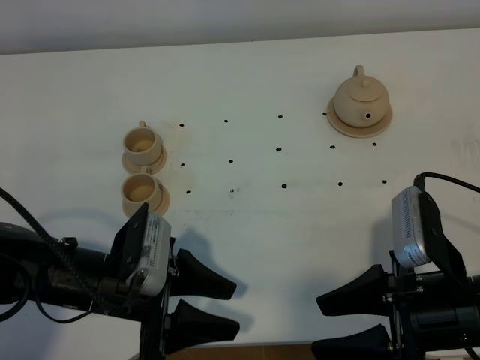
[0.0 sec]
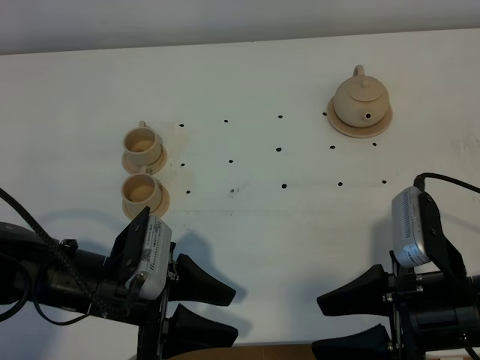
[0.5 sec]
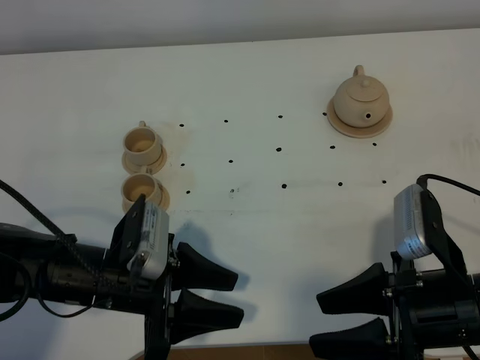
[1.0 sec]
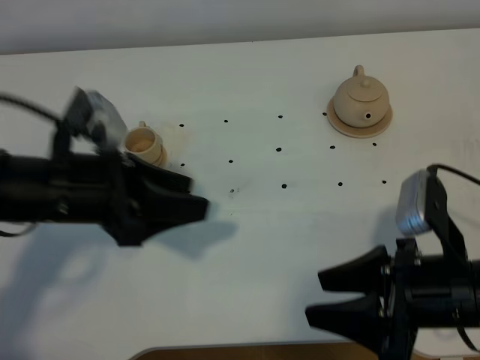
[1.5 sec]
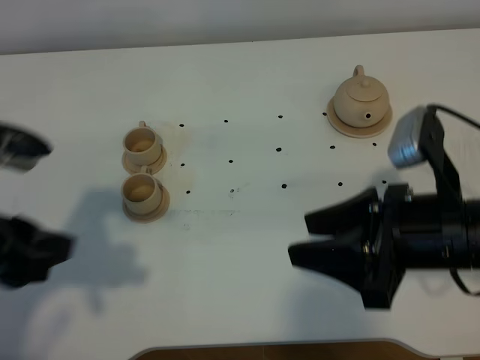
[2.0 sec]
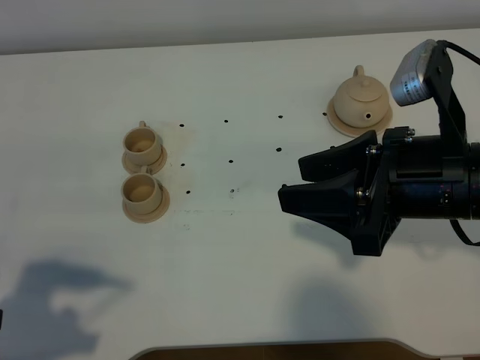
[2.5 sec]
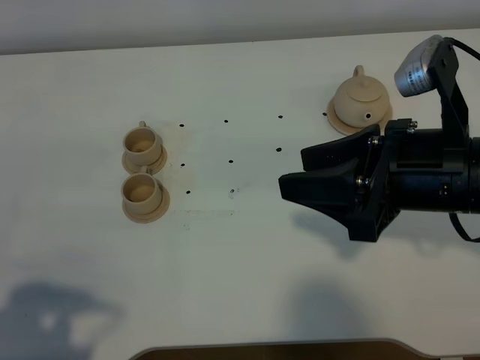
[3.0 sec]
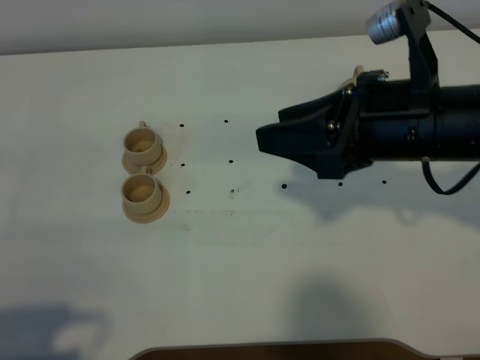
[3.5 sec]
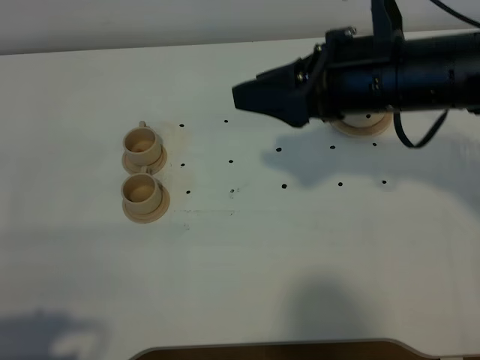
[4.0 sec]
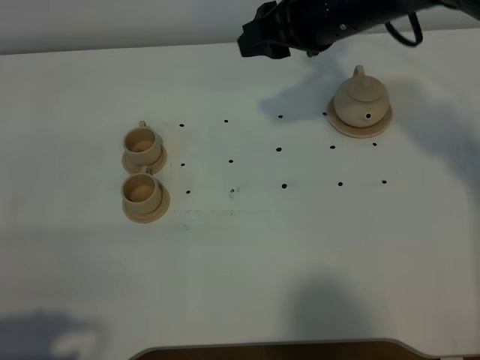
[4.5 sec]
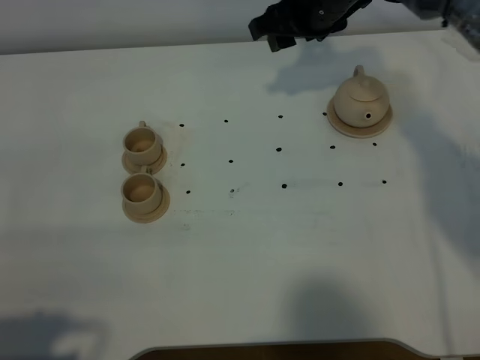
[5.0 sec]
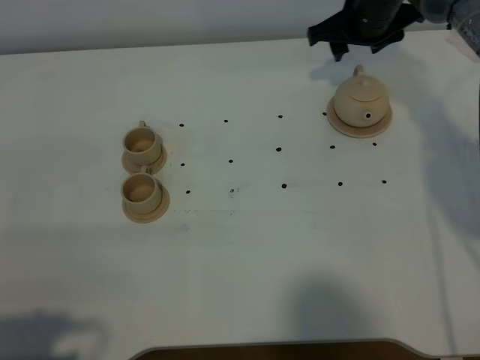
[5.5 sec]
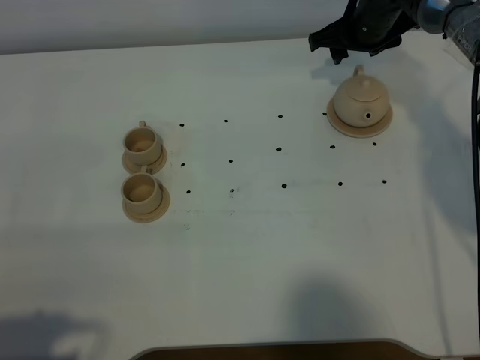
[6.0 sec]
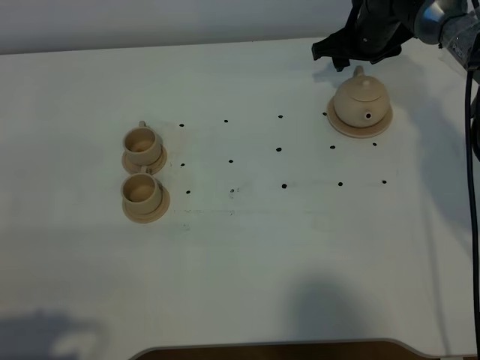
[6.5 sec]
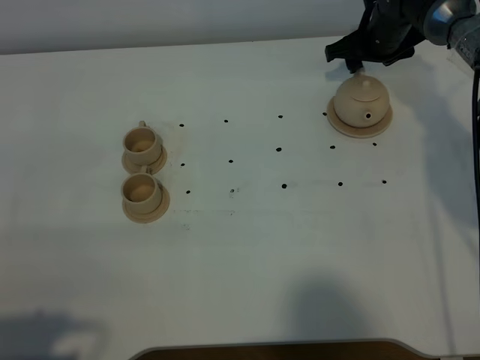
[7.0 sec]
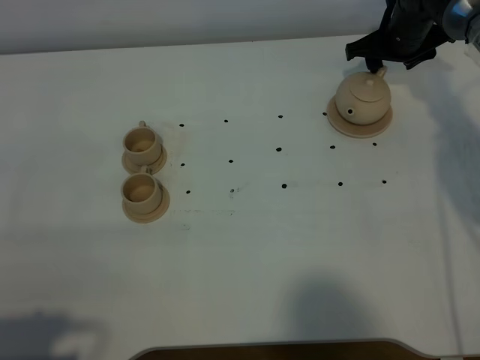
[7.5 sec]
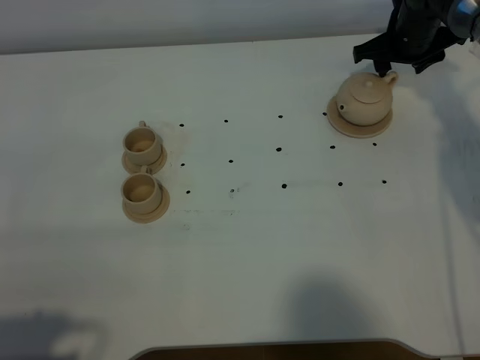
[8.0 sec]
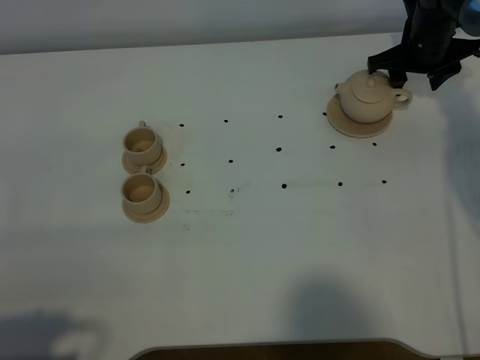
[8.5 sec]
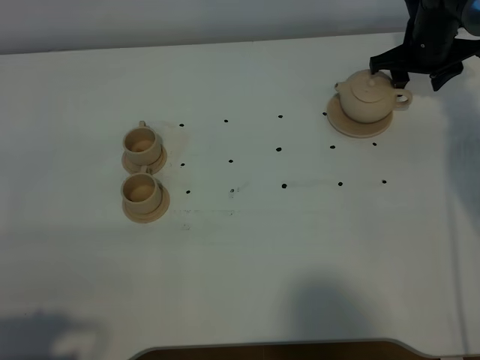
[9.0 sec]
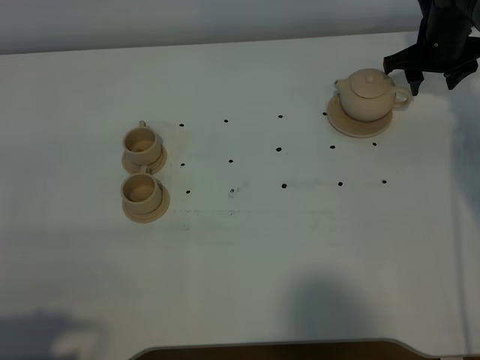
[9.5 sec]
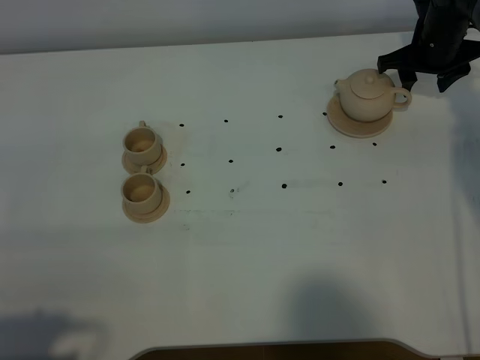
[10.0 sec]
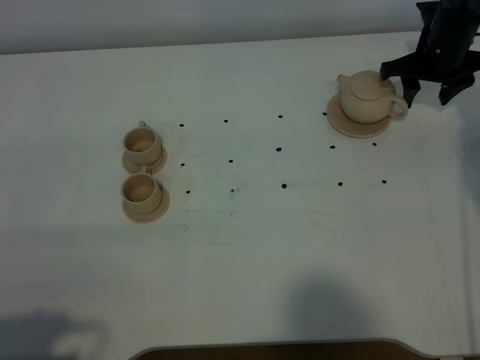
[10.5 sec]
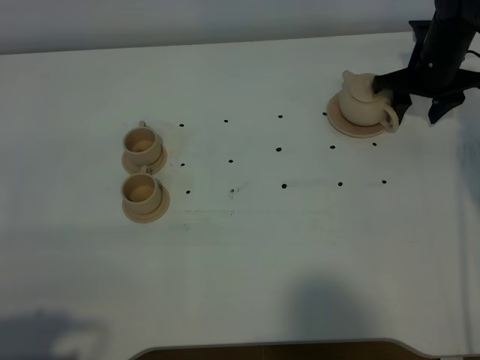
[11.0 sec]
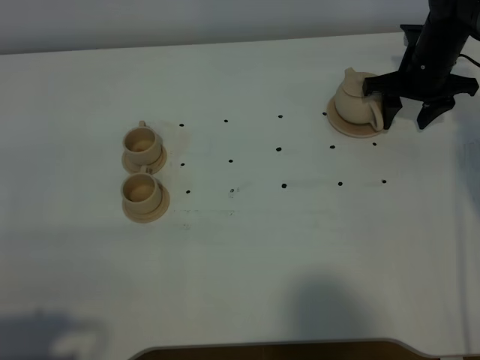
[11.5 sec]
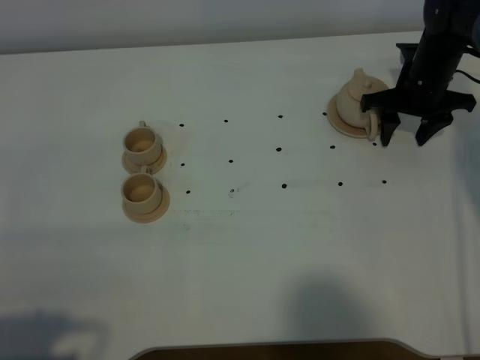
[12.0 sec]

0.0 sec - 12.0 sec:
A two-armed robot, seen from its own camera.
Task of the whole recording: grasp the brown teapot and pour the tea into the two brown teacups one by one, put the brown teapot back in its original place.
0.0 sec - 2.0 sec: The left gripper is displaced upward and to the left by about 20 cm, while the right gripper shifts some 5 cm upward.
2.0 sec - 4.0 sec: The right gripper travels forward and upward by some 15 cm. The left gripper is displaced backward by roughly 15 cm.
4.0 sec - 6.0 sec: The right gripper shifts about 25 cm forward and downward.
6.0 sec - 8.0 sec: The right gripper is displaced to the right by roughly 5 cm.
8.0 sec - 10.0 sec: The grippers stay close to where they were, moving slightly.
10.0 sec - 12.0 sec: The right gripper moves some 5 cm.

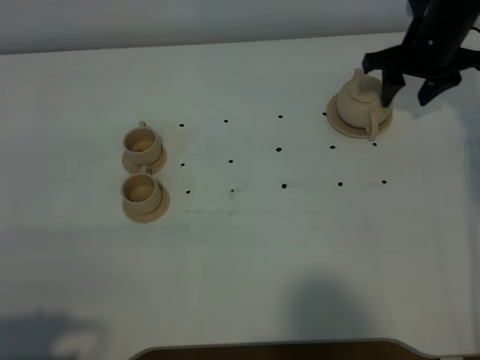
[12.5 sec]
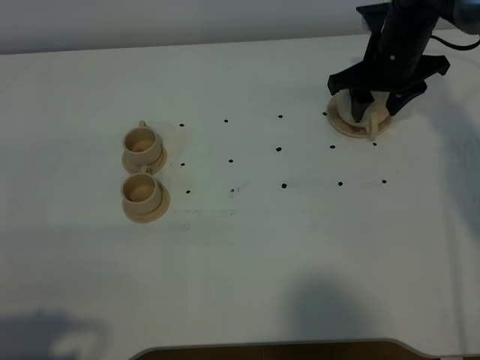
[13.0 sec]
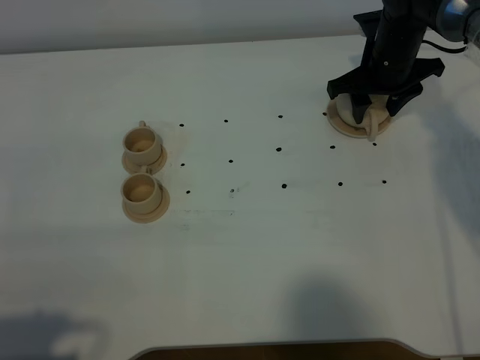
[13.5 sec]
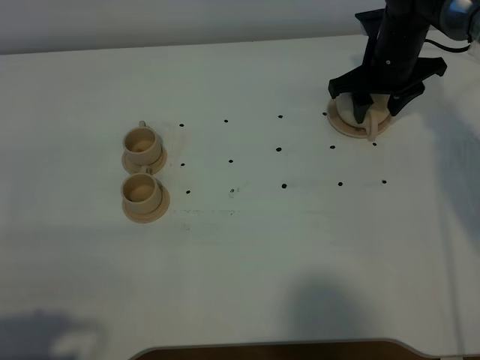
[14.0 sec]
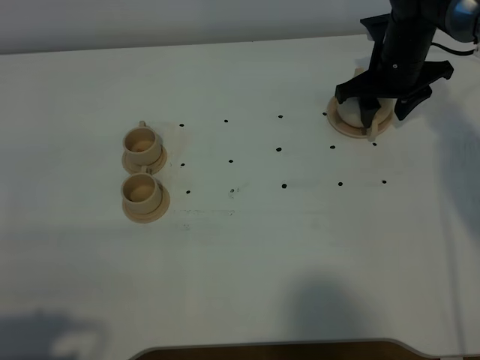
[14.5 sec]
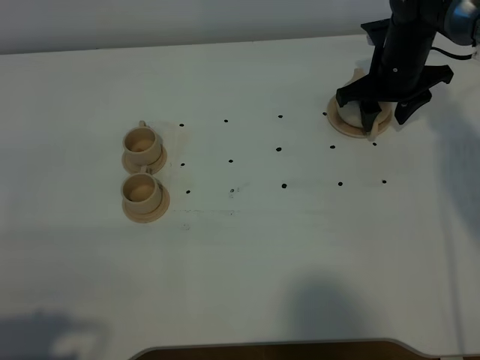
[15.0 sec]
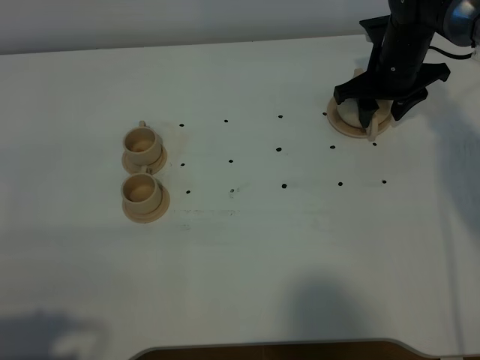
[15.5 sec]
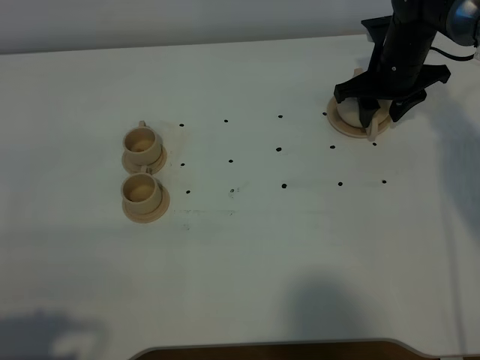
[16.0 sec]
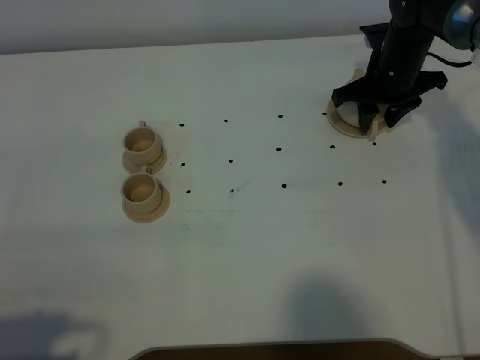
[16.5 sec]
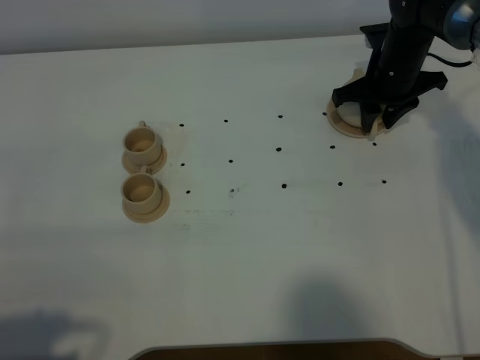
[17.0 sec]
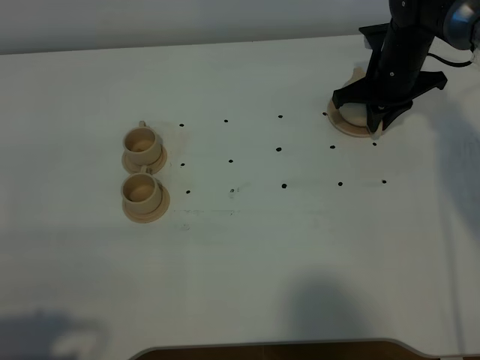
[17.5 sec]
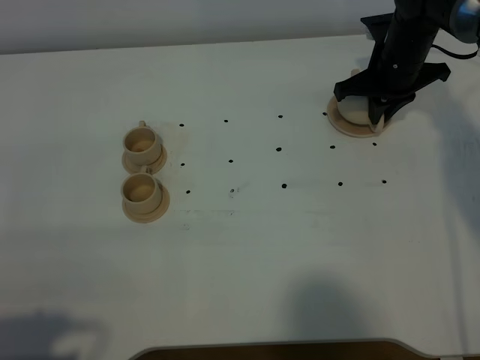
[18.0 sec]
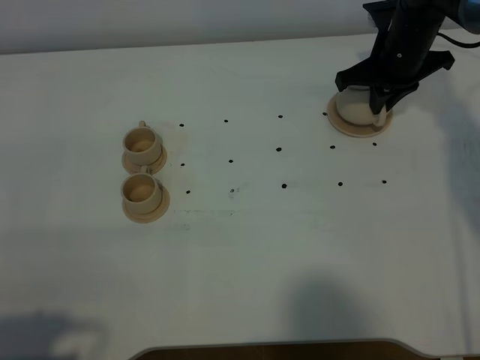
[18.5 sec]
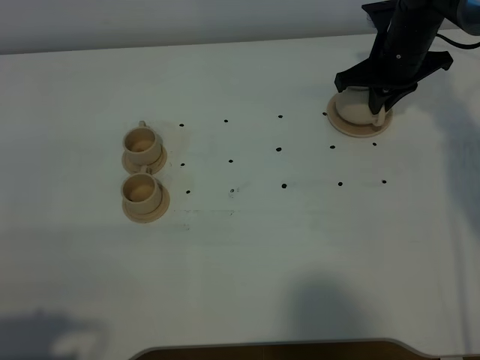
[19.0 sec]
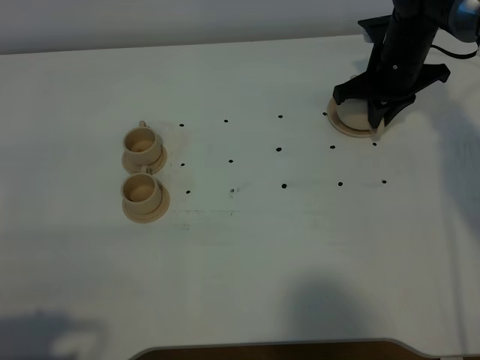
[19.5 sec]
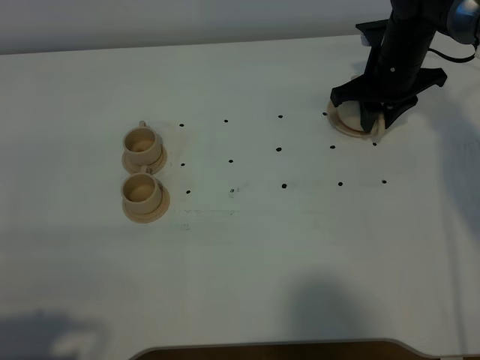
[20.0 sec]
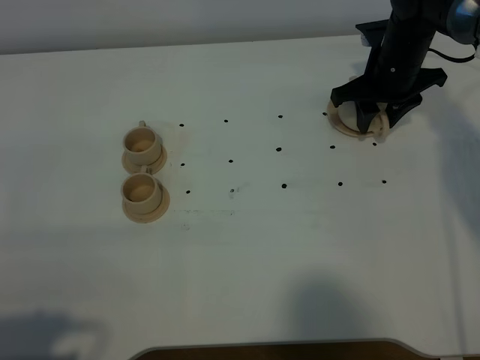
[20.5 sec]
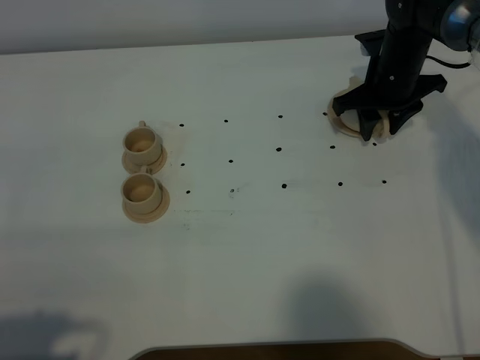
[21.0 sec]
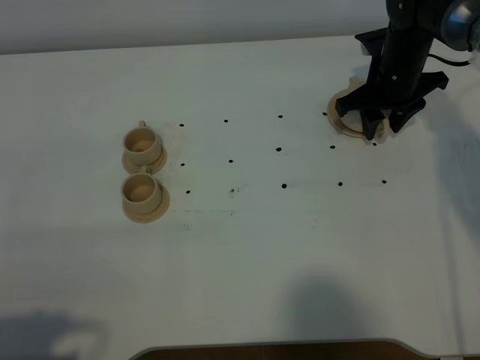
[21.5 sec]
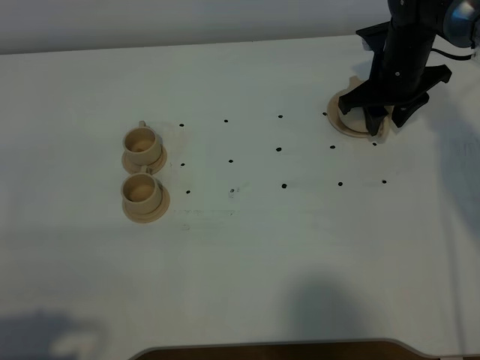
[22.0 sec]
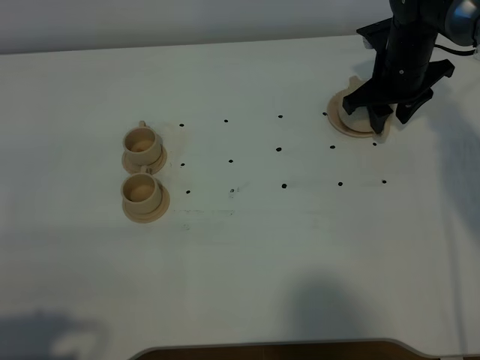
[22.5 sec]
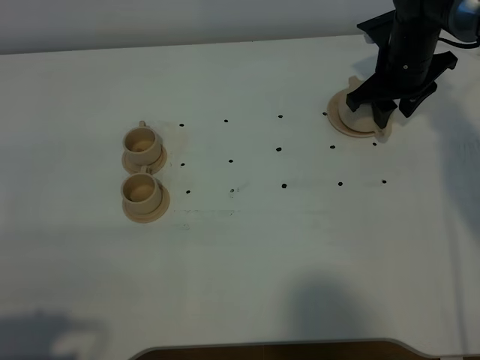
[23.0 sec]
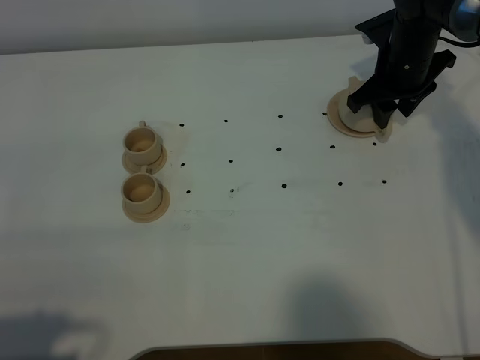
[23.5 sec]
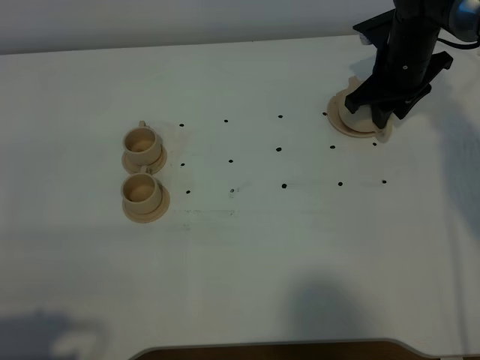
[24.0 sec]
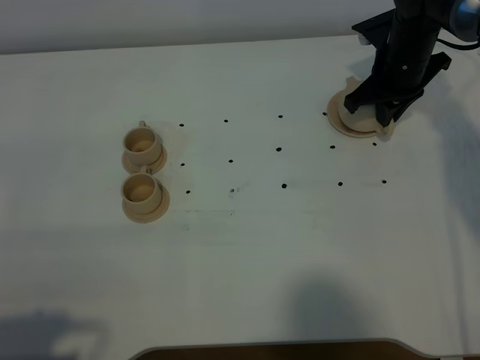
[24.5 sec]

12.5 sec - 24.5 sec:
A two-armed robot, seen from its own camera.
Task of the whole recording: grasp the brown teapot and pour the tea into the two brown teacups one by one, put the brown teapot back in its original place.
12.5 sec - 16.5 sec: The grippers move only a little.
16.5 sec - 18.5 sec: The right gripper closes up.
18.5 sec - 20.5 sec: The right gripper opens its fingers.
20.5 sec - 22.5 sec: There are only small adjustments of the grippers.
22.5 sec - 24.5 sec: The right gripper closes.

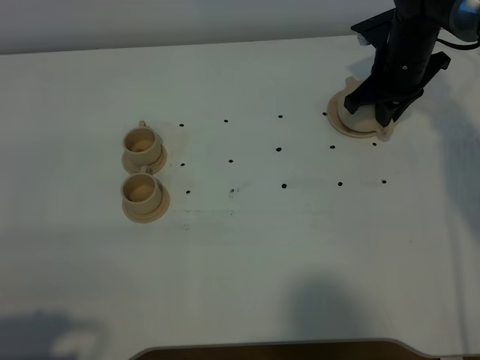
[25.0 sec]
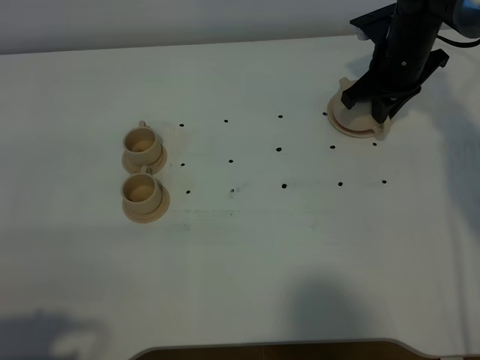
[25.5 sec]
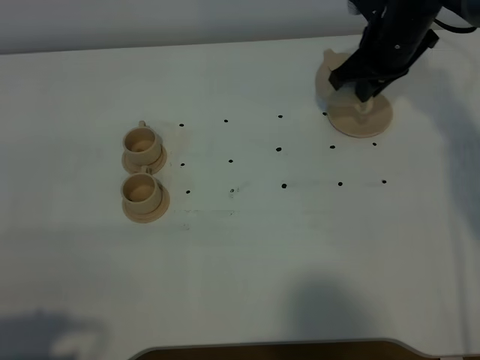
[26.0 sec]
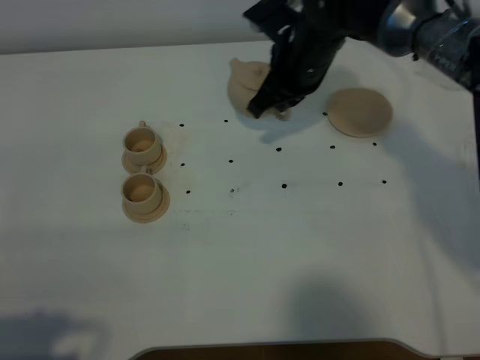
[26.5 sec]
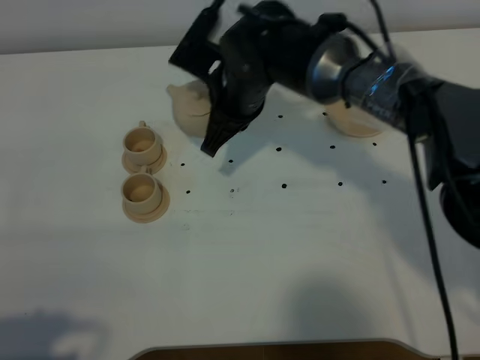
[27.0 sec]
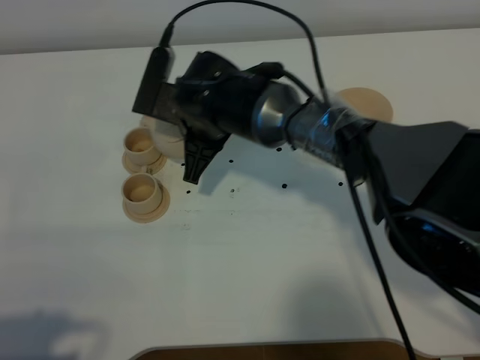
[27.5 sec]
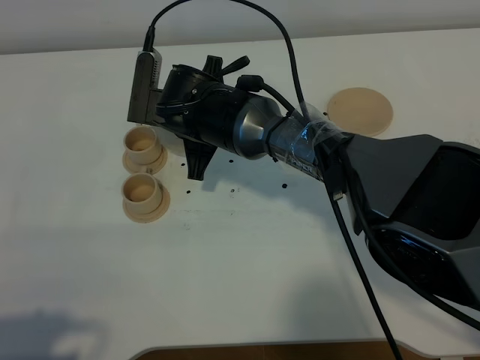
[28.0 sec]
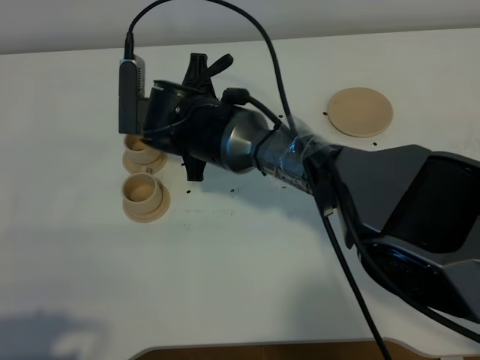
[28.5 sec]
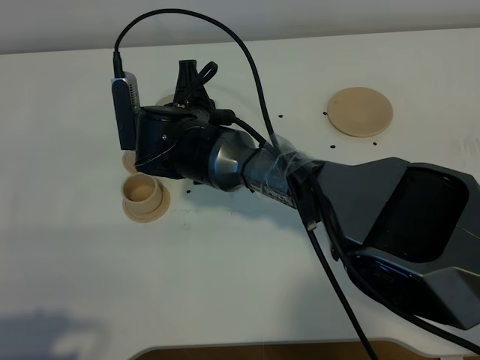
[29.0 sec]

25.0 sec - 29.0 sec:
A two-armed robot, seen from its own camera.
Task of the whole recording: grasp the brown teapot and pour the tea into the two brown teacups one by one, put the brown teapot back in its original place.
25.0 sec - 27.0 sec: The right gripper shifts roughly 20 cm to the left.
27.0 sec - 29.0 sec: The right gripper travels to the left by about 10 cm.
